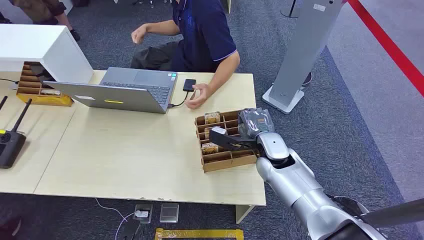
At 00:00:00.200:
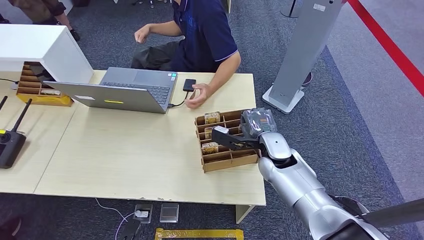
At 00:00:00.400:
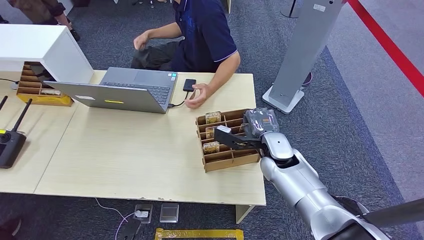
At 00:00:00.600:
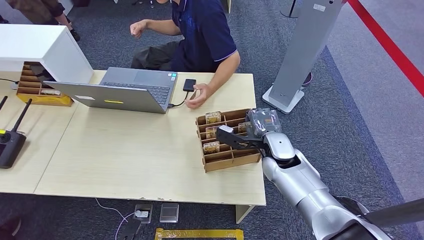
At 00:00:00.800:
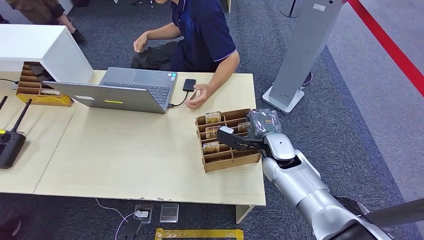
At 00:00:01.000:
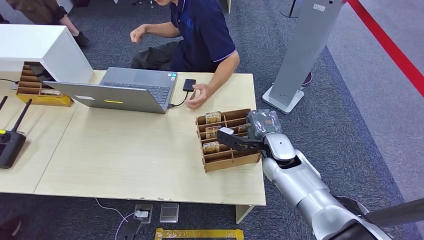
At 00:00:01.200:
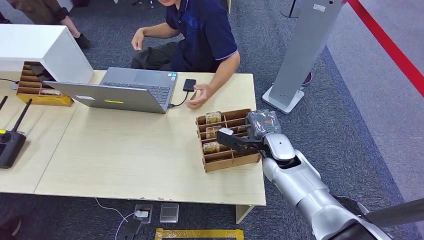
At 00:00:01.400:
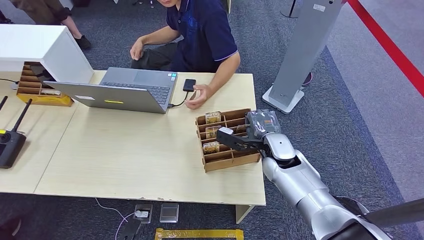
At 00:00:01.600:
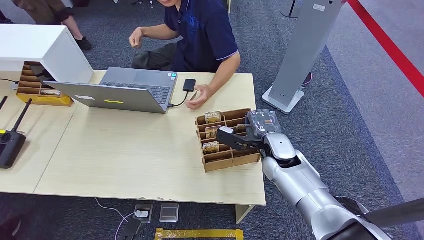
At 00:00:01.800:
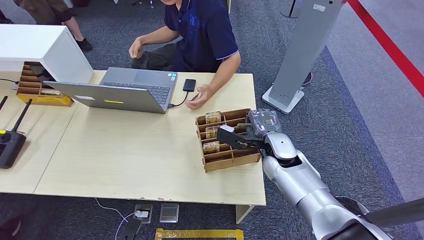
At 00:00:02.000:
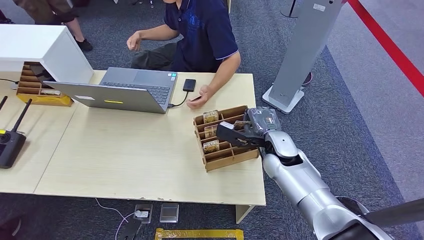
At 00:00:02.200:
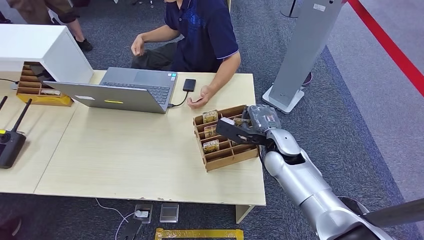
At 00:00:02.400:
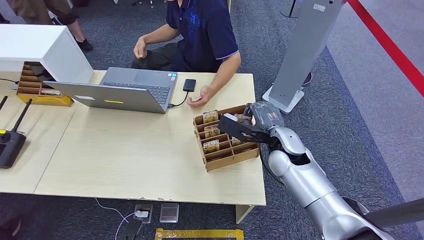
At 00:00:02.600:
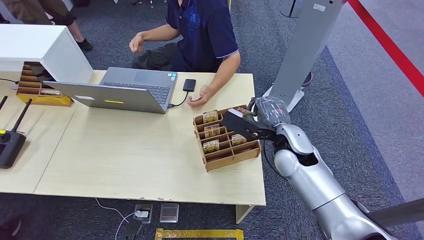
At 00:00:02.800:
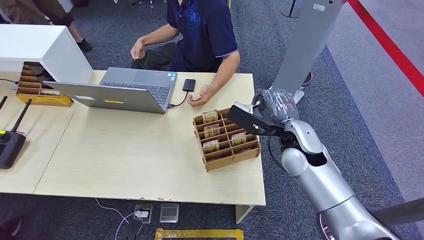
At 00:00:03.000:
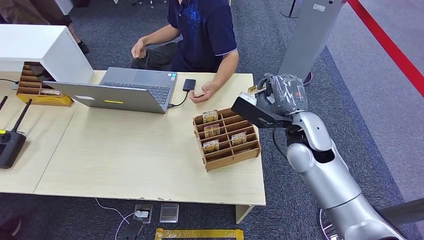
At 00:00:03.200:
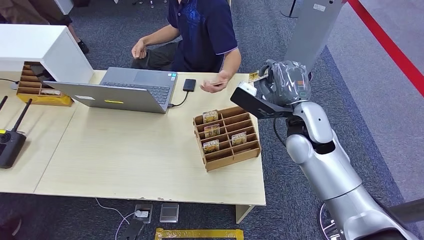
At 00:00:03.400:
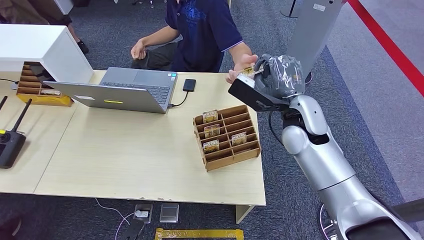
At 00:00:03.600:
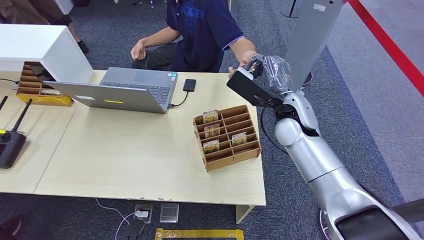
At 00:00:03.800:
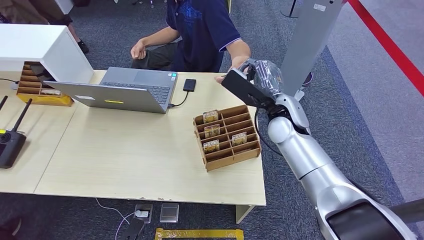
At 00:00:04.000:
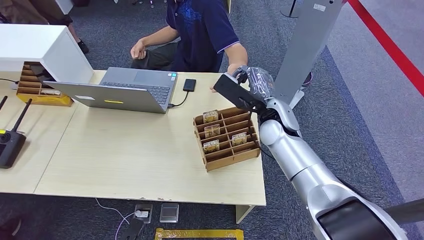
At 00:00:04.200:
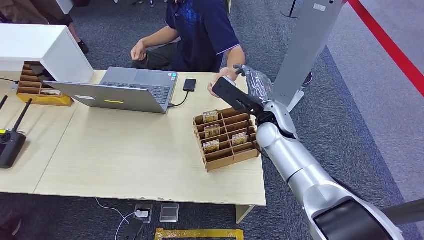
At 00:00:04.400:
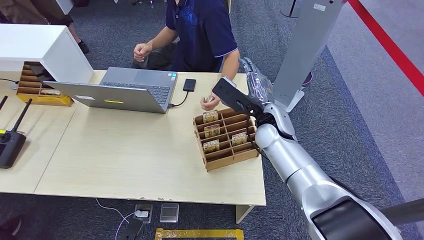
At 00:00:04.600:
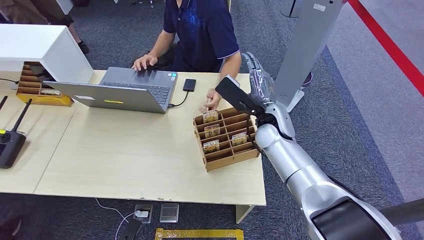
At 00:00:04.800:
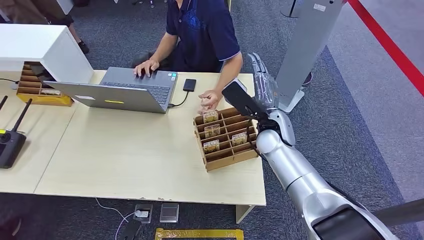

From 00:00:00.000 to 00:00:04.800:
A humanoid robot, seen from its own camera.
Step, from 00:00:00.000 to 00:00:02.400: Pick up the room card from the card holder.
Step, from 00:00:03.600 to 00:00:04.600: Hand the room card to the target.
From 00:00:01.600 to 00:00:03.200: The right hand moves upward, roughly 10 cm.
From 00:00:03.200 to 00:00:04.800: The right hand heads downward, covering about 5 cm.
